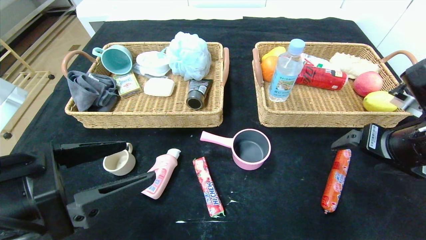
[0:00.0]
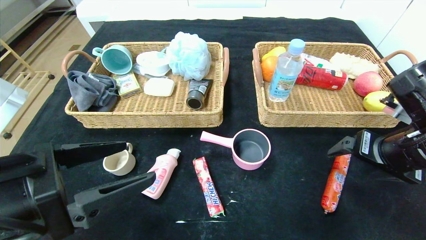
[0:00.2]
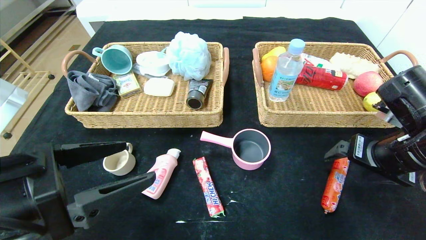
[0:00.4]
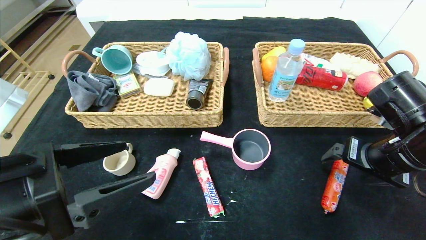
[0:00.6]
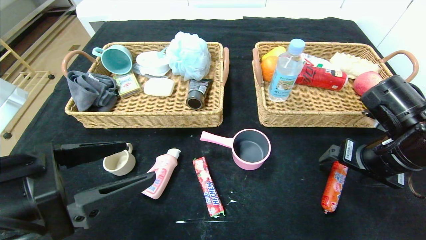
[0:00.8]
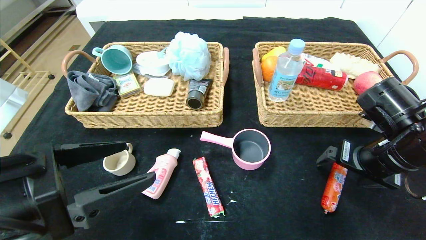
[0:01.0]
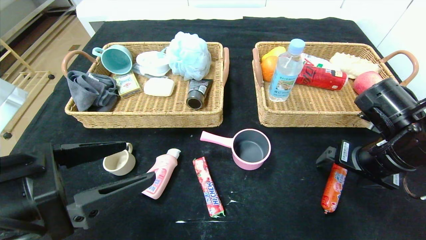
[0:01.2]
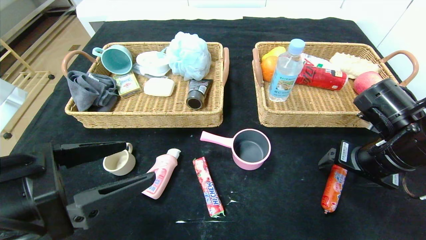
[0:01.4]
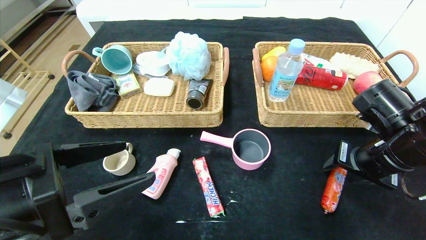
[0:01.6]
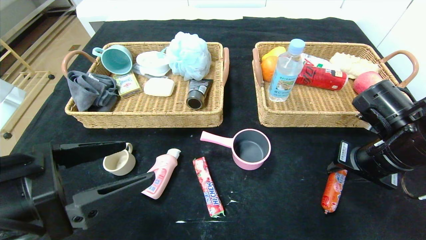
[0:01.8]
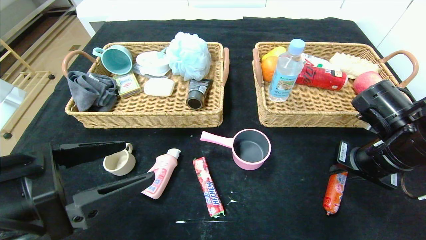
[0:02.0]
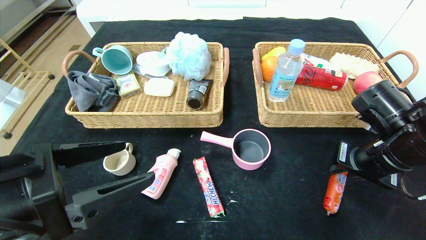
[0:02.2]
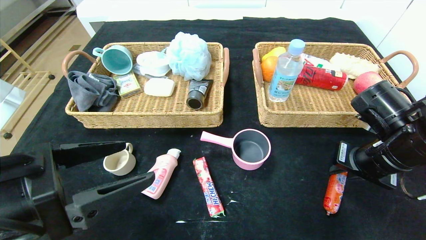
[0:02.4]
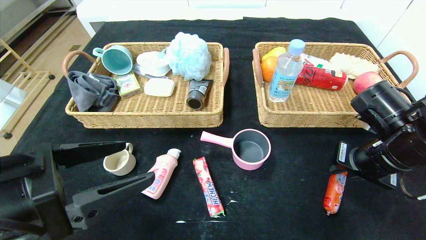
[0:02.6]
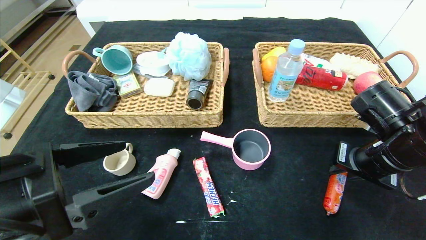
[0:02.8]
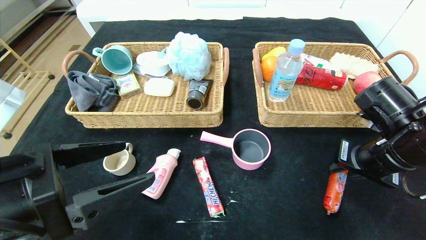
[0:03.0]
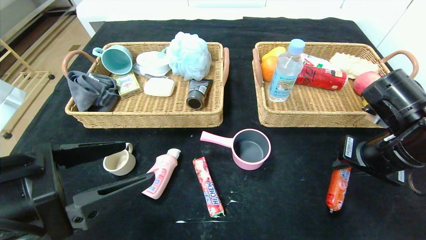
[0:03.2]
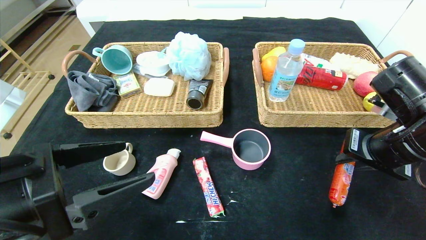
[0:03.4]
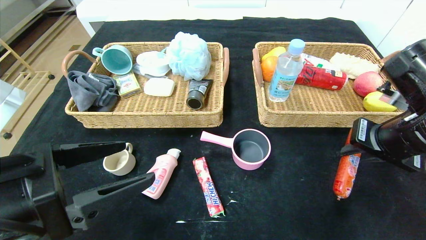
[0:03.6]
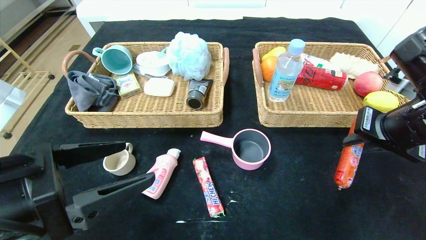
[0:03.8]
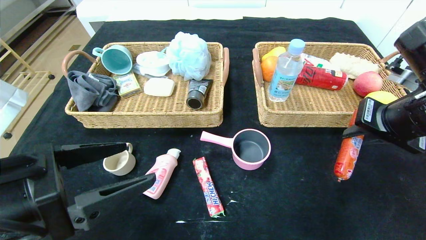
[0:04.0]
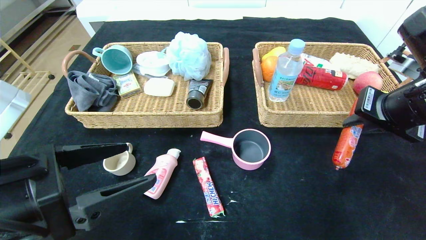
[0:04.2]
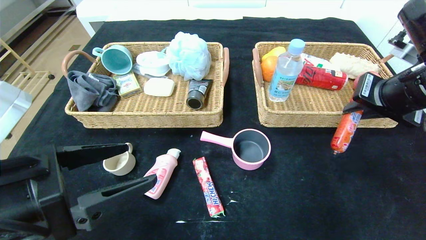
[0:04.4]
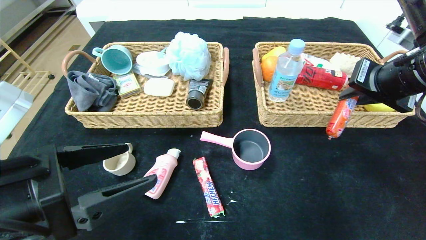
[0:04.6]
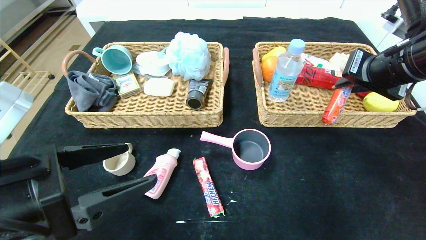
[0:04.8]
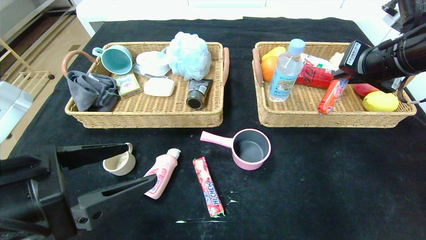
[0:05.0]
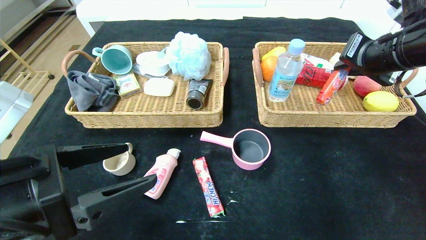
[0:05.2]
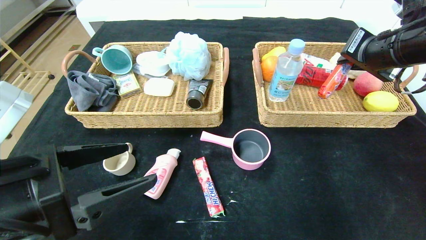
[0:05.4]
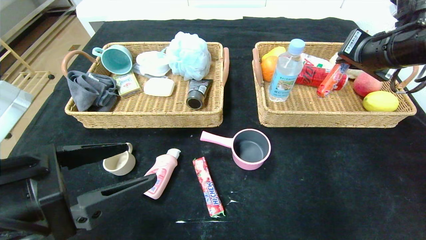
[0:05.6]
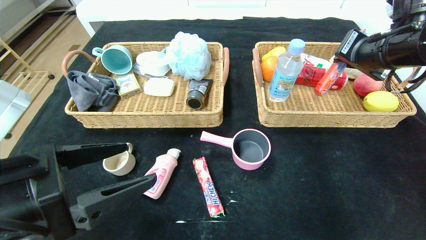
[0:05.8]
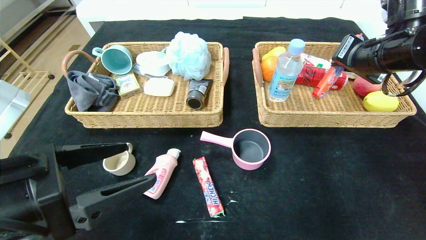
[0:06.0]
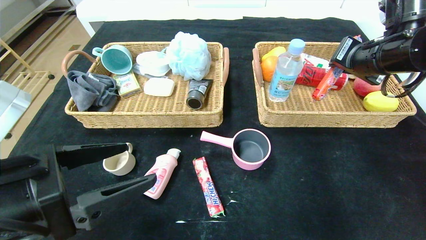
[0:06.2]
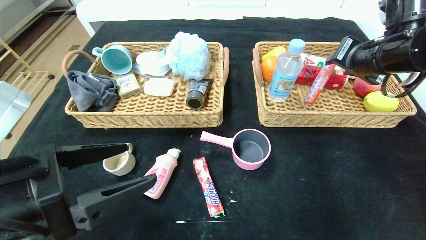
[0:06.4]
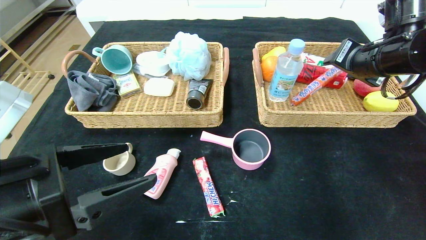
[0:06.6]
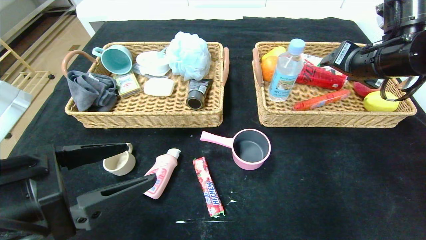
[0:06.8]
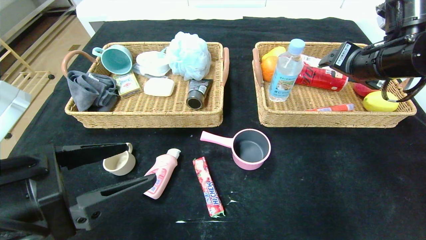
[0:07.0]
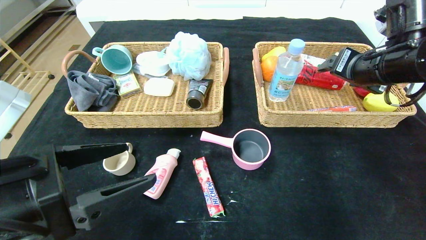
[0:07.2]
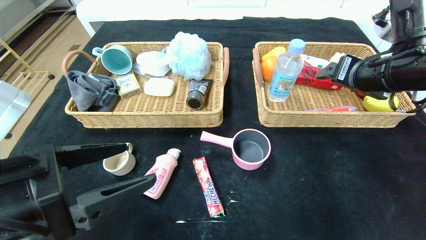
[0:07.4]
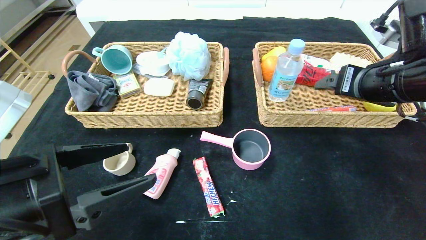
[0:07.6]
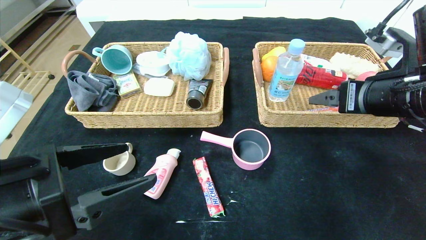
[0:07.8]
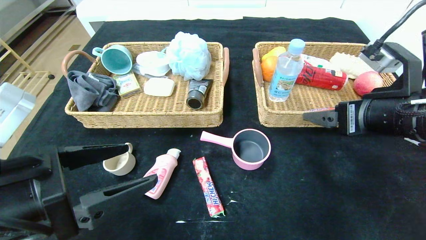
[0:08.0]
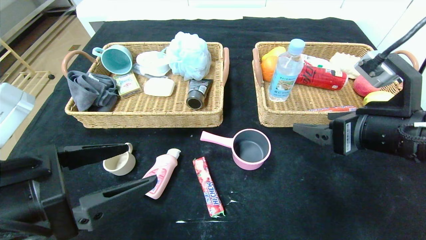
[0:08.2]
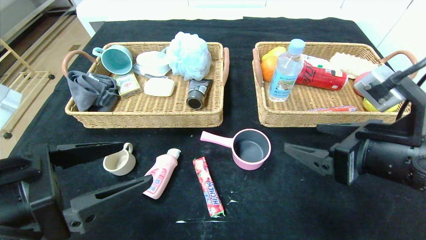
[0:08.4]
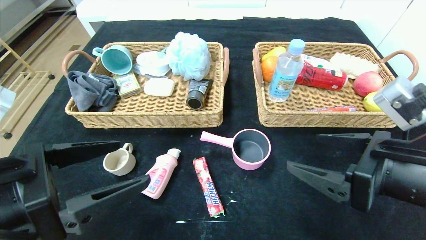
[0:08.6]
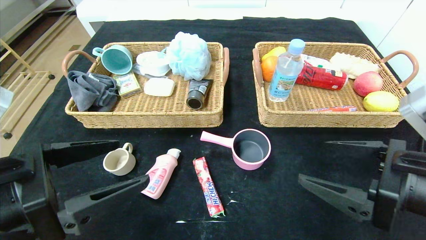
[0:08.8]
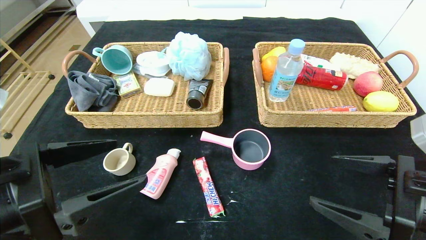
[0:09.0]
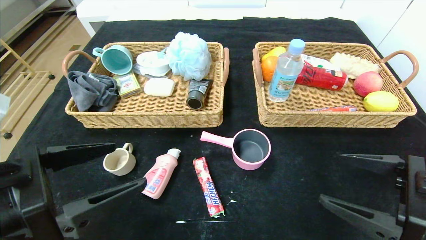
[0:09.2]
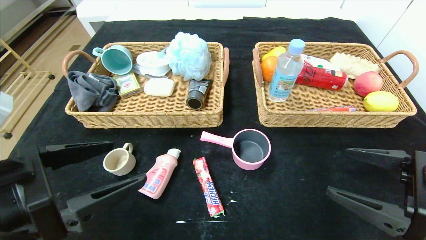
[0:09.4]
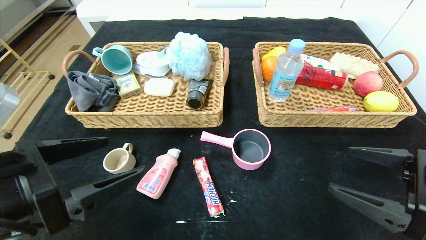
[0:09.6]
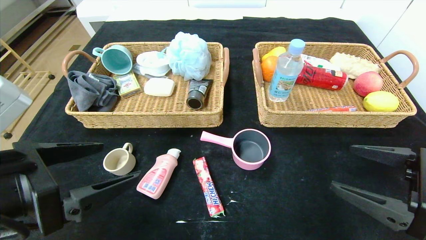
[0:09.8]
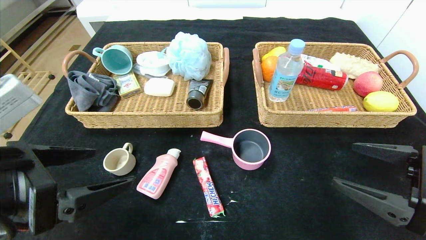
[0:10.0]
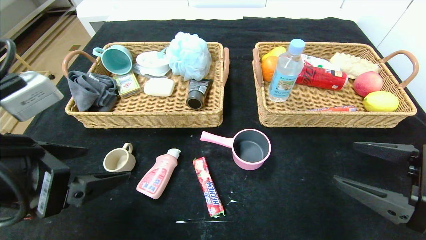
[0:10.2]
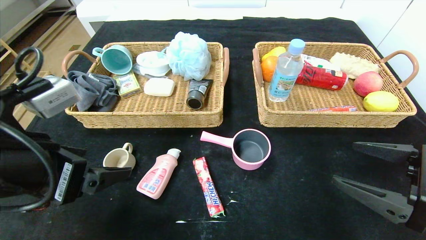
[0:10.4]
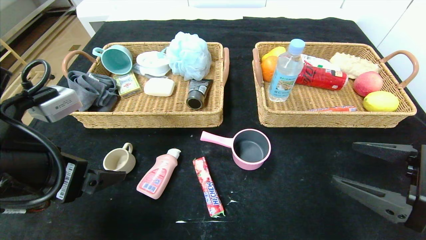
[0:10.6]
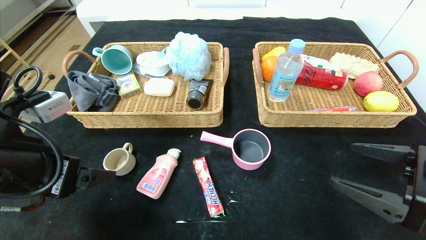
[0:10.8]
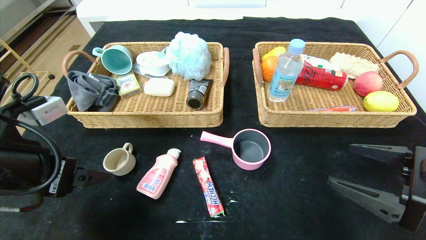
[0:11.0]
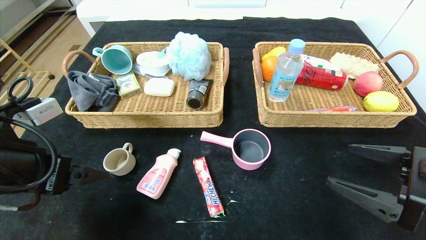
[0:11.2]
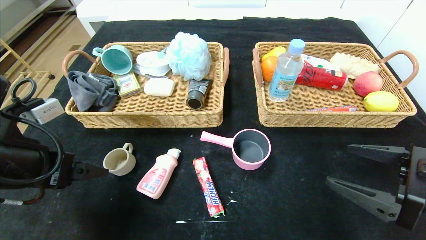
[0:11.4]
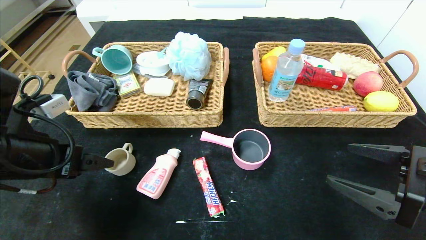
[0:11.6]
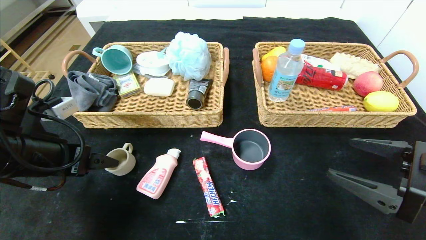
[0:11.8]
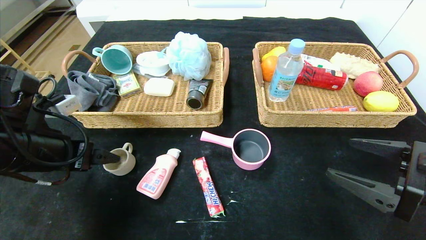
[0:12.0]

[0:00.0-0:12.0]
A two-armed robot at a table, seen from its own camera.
Step, 0:00.0 to 0:06.6: Grasp the sausage and put it in the right basket.
0:00.0 to 0:01.6: The right gripper moves some 5 cm, and closes up.
0:01.6 to 0:03.0: The right gripper closes its fingers.
0:03.0 to 0:04.4: The right gripper travels upward by roughly 10 cm.
0:04.4 to 0:06.0: The right gripper is displaced forward by roughly 5 cm.
0:06.0 to 0:07.6: The right gripper shifts about 5 cm backward, and opens its fingers.
0:07.6 to 0:09.0: The right gripper moves backward and downward, about 15 cm.
0:10.4 to 0:12.0: The left gripper is displaced forward and to the left by some 10 cm.

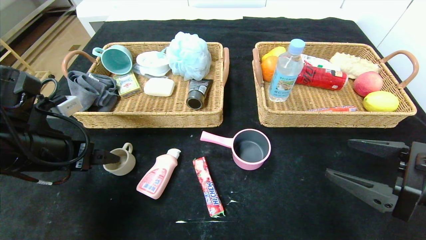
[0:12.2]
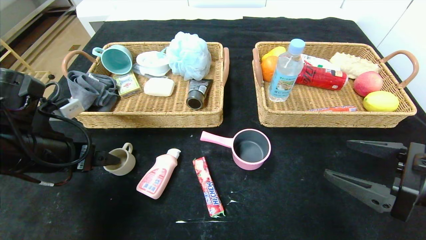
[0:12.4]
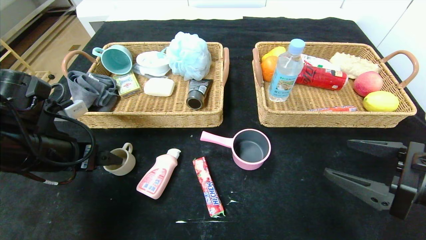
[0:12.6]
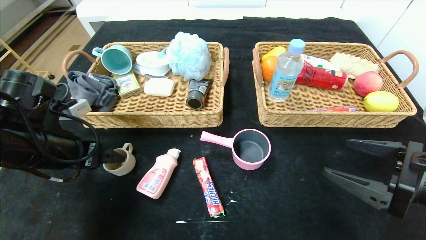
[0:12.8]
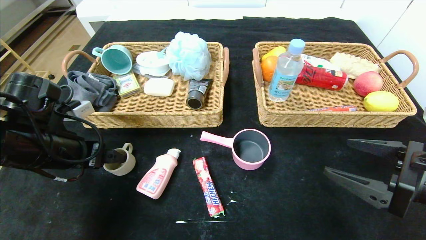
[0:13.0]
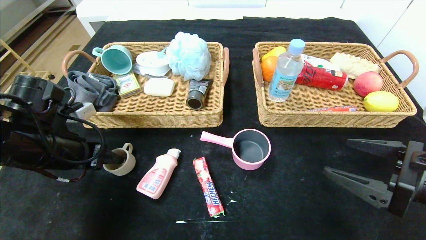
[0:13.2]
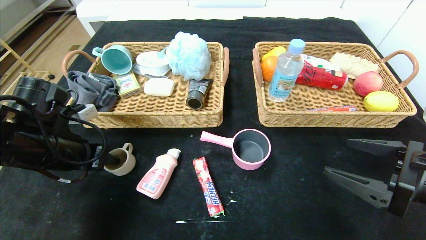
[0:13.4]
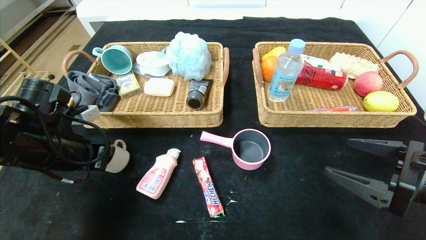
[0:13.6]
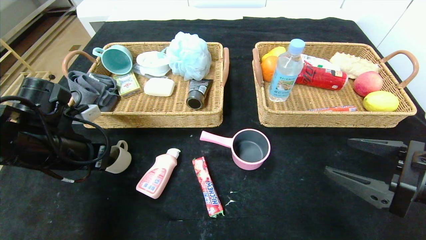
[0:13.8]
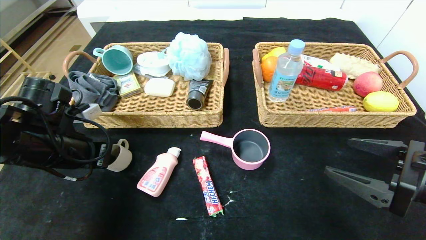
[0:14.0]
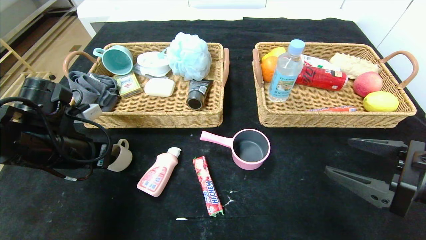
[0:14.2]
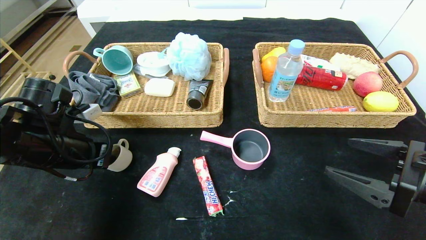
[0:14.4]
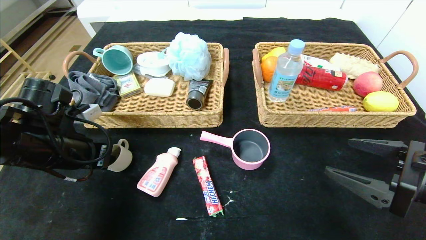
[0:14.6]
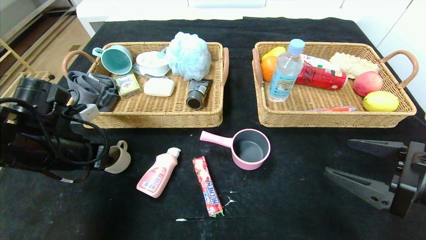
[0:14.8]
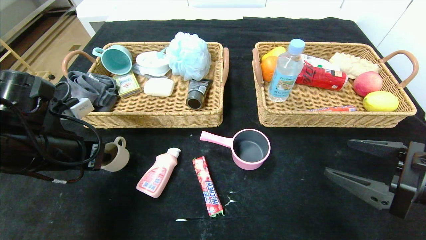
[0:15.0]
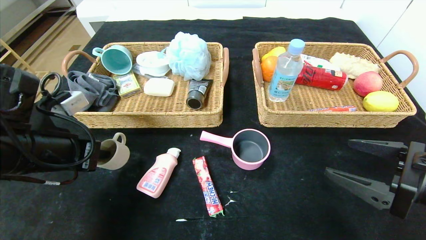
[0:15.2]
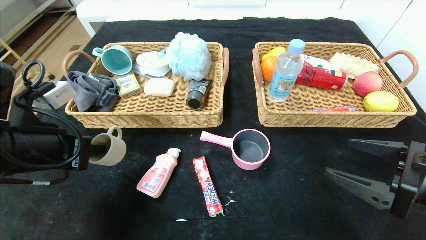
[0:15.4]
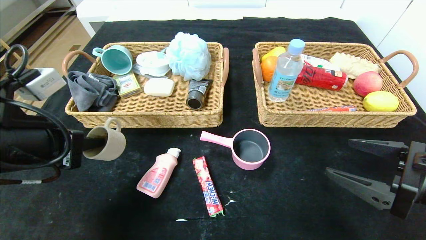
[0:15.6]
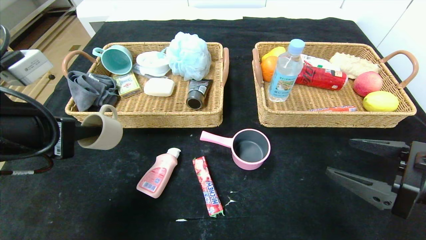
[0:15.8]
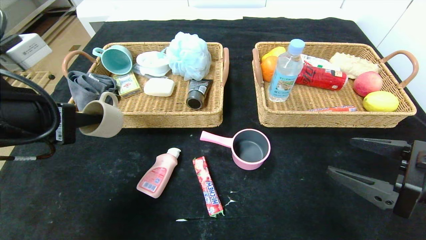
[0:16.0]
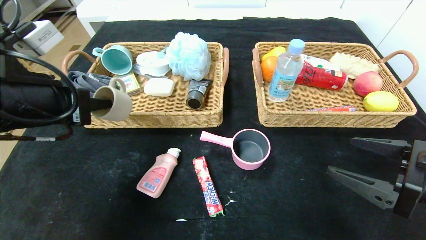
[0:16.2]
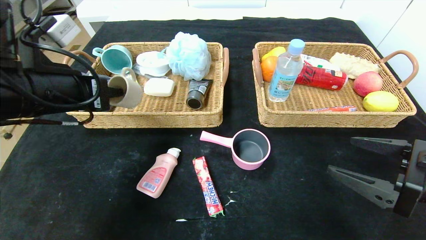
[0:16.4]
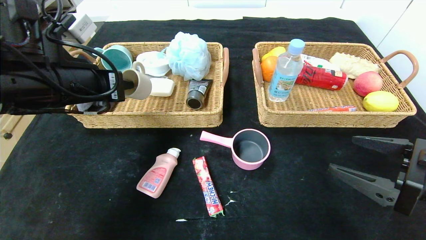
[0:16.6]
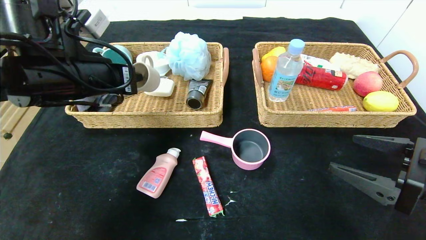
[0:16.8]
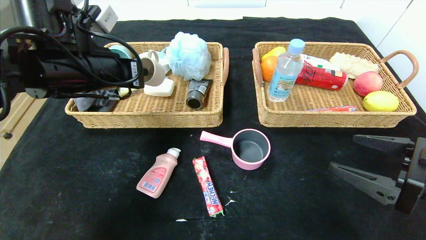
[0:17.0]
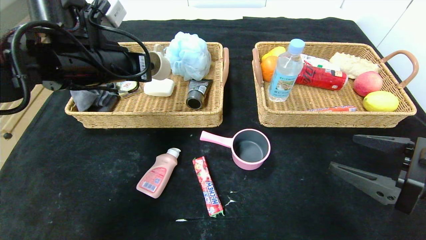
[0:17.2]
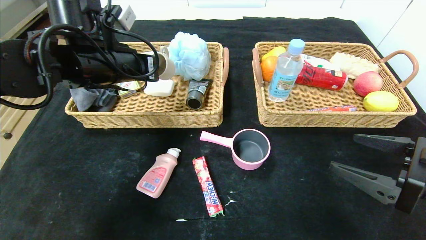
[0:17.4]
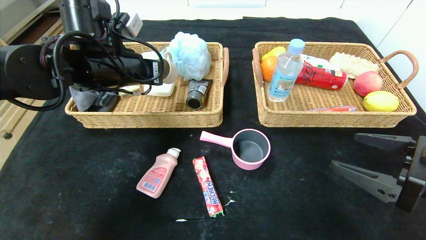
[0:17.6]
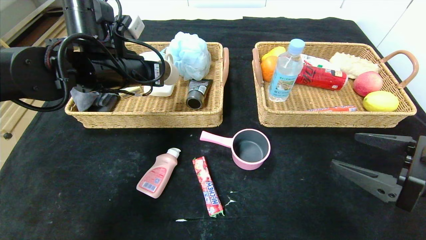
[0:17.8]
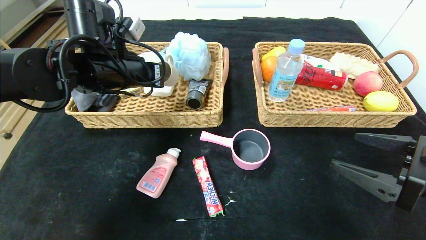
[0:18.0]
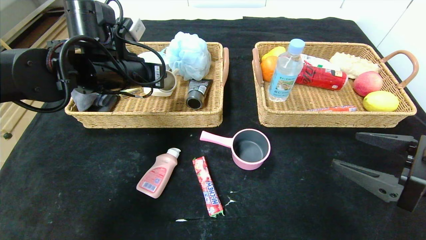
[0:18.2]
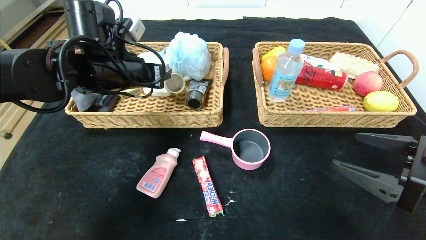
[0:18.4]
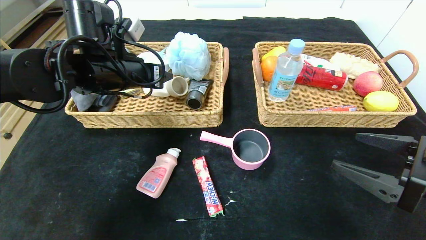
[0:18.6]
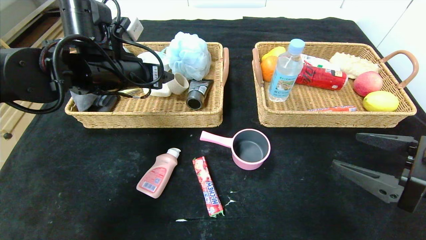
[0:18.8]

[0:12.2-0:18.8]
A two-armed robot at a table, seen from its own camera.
Step, 0:12.2 to 0:18.4: Grasp the grey cup and put it in the left basket.
0:12.2 to 0:13.8: The left gripper closes up.
0:13.8 to 0:15.4: The left gripper goes approximately 5 cm backward.
0:15.4 to 0:17.2: The left gripper moves forward, upward and to the right, approximately 15 cm.
0:17.2 to 0:18.8: The left gripper opens.
